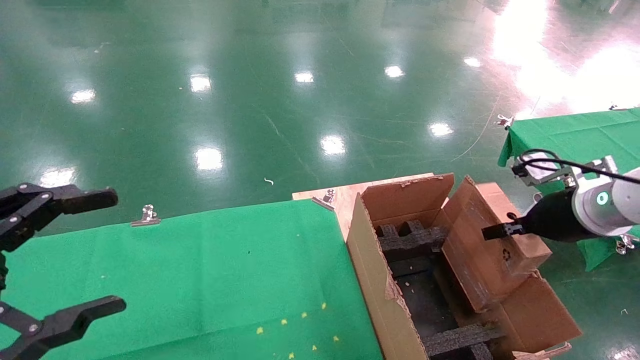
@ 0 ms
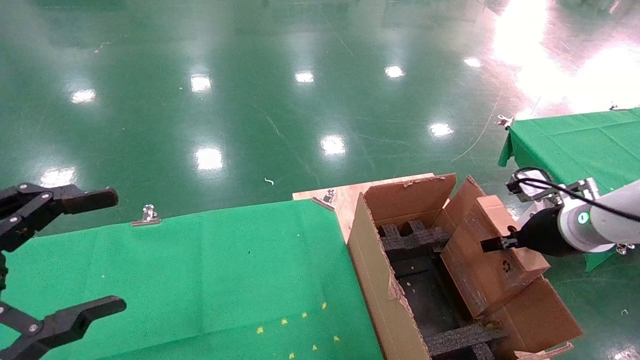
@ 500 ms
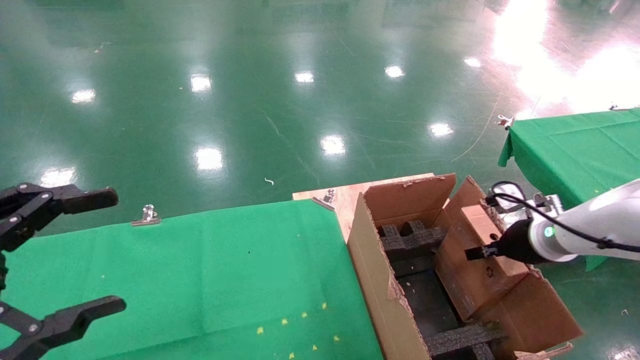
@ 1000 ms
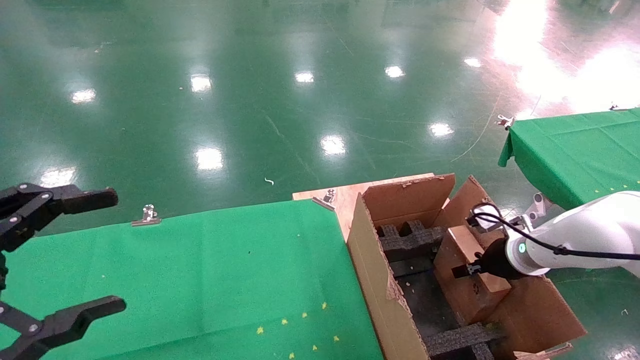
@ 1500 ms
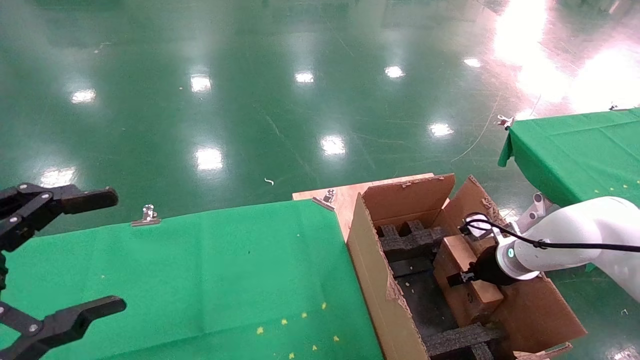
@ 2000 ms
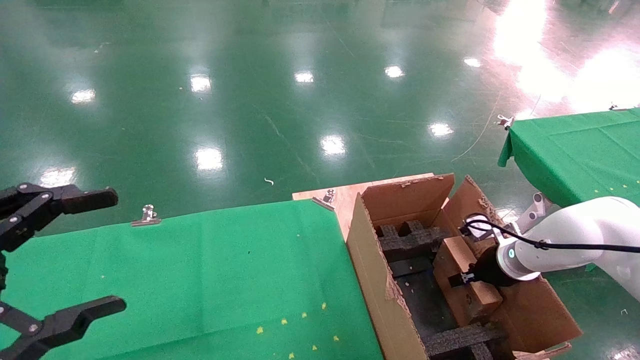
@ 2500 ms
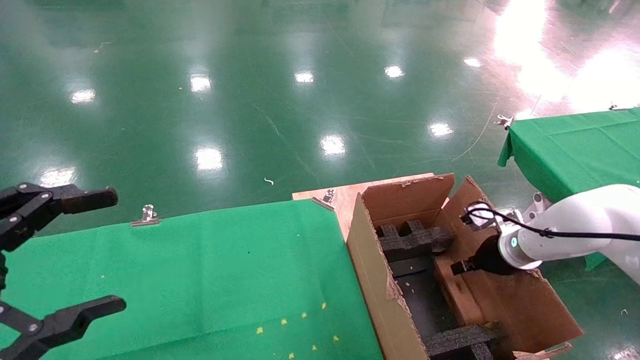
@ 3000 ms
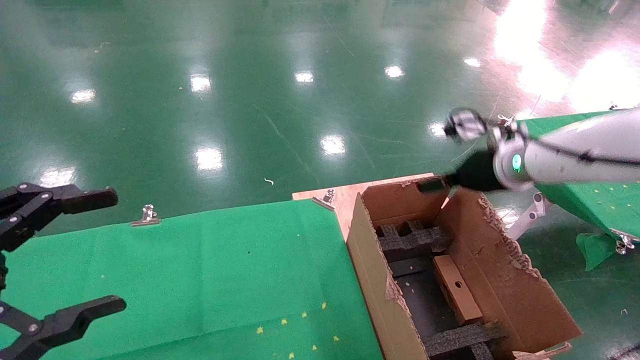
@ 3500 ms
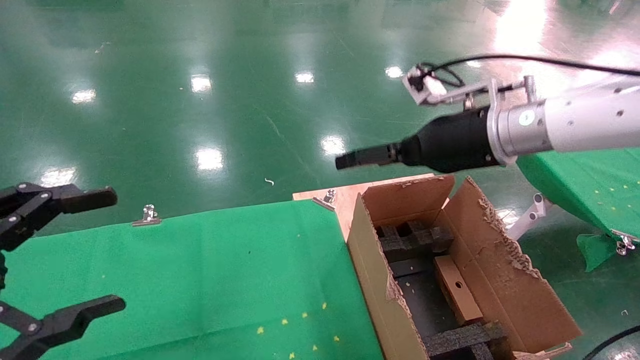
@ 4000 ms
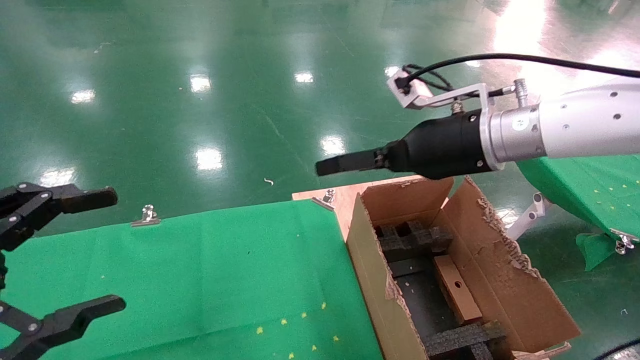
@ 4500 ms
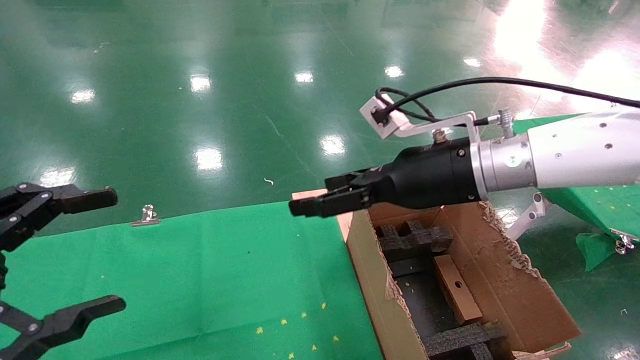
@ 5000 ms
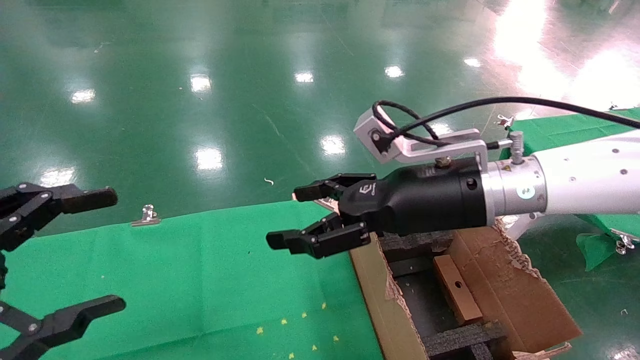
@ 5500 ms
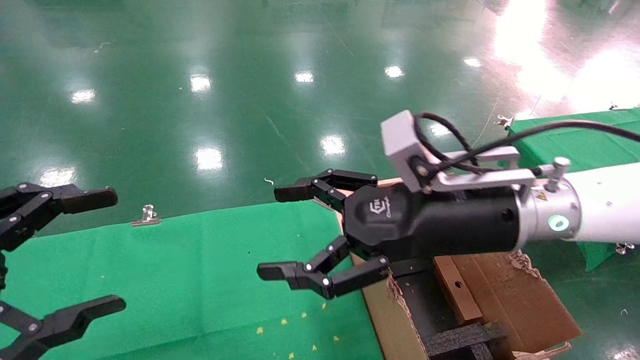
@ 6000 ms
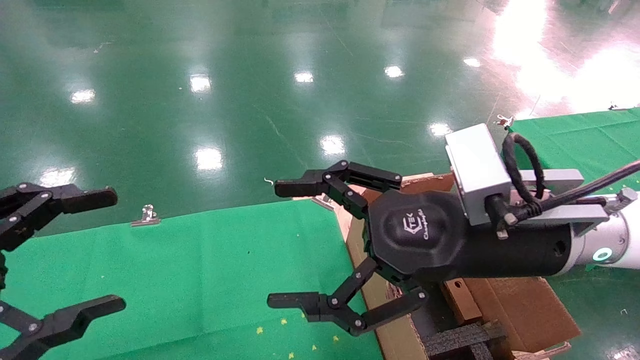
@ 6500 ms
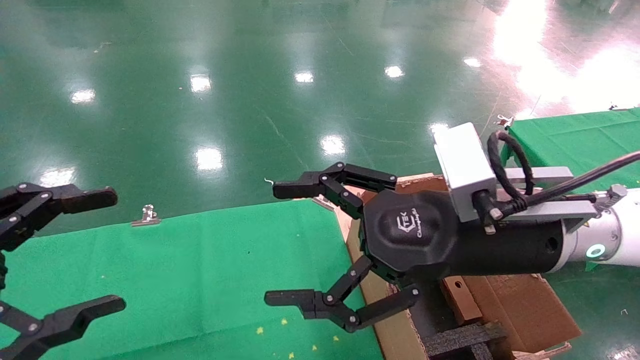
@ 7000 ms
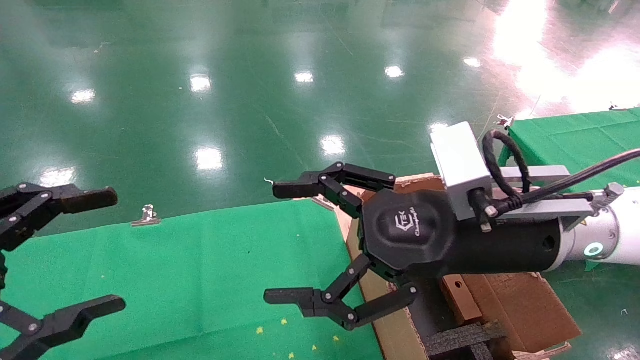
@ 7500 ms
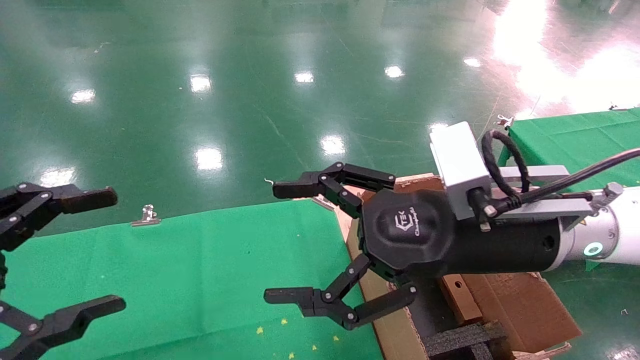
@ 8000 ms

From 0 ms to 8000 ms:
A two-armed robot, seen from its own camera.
Task of the whole recording: using a robotic arm to pick up a cardboard box and palace it the carton.
Step, from 0 ms to 2500 ms: Place the mouse and the power cord paper box into the container.
From 0 ms to 2000 ms: The right gripper is displaced downward and forward by roughly 15 cm.
From 2000 ms to 4000 ms: The right gripper heads upward and to the left, covering roughly 25 cm, and opens its fingers.
From 4000 ms to 6000 ms: The right gripper goes roughly 10 cm backward and to the left.
From 6000 ms to 8000 ms: The grippers stay close to where they were, moving slightly.
